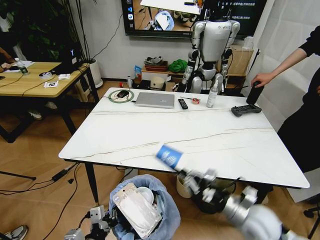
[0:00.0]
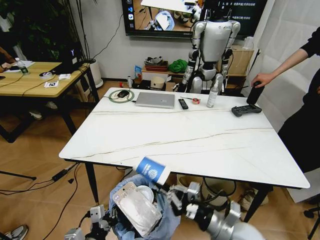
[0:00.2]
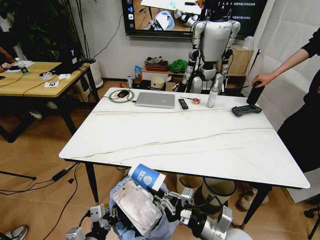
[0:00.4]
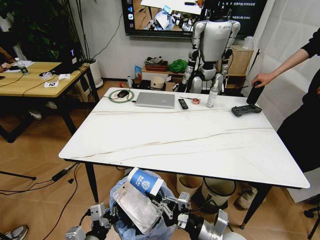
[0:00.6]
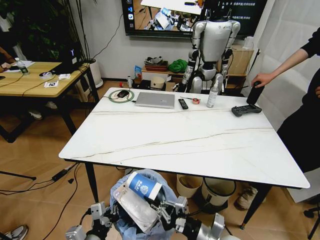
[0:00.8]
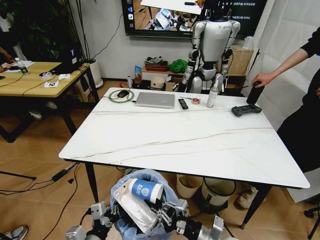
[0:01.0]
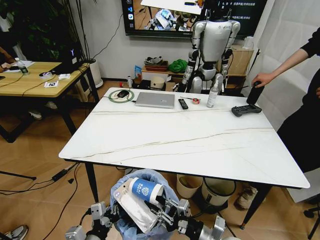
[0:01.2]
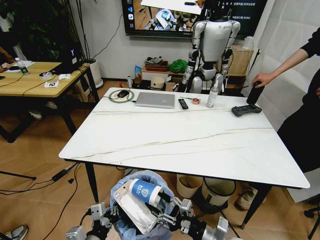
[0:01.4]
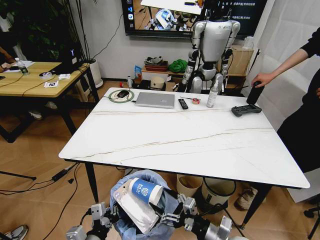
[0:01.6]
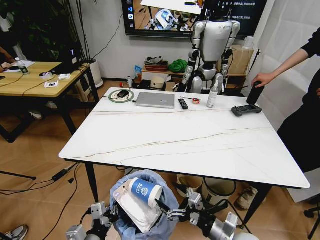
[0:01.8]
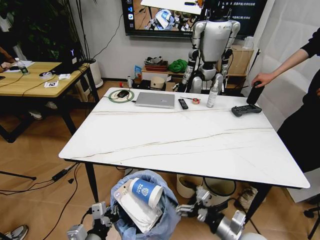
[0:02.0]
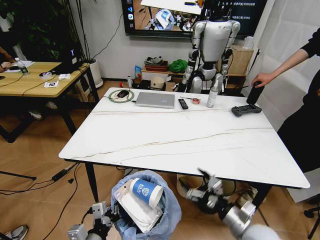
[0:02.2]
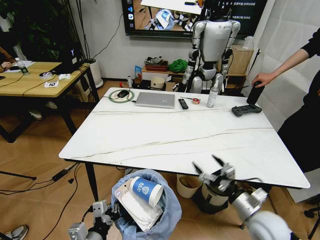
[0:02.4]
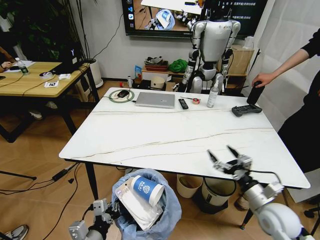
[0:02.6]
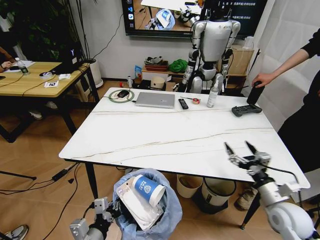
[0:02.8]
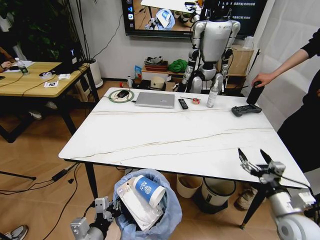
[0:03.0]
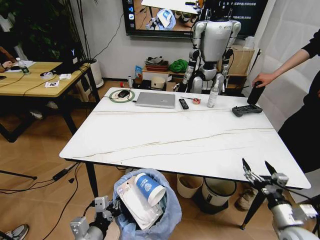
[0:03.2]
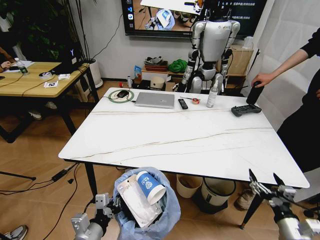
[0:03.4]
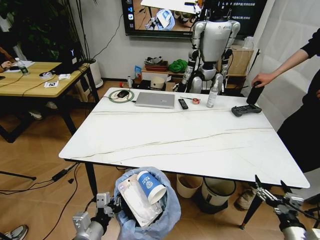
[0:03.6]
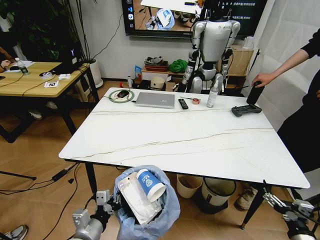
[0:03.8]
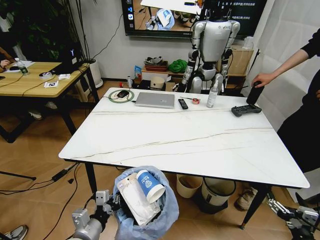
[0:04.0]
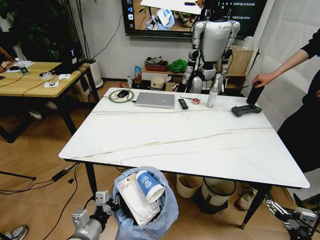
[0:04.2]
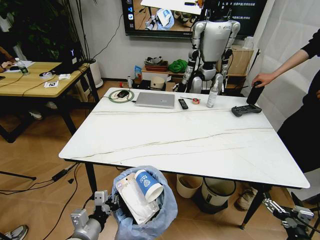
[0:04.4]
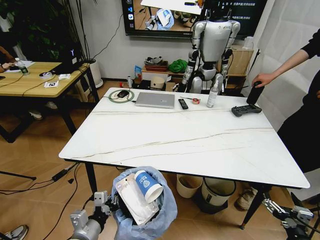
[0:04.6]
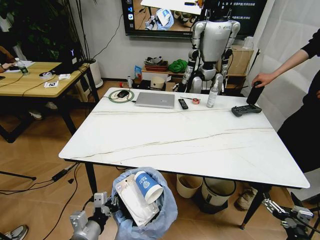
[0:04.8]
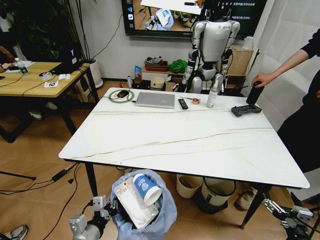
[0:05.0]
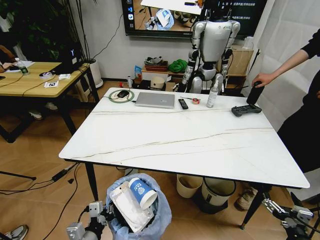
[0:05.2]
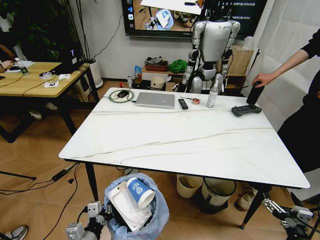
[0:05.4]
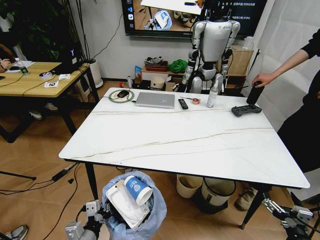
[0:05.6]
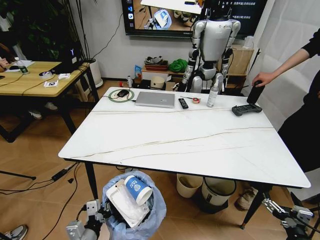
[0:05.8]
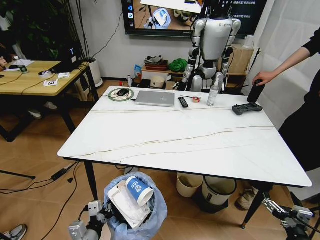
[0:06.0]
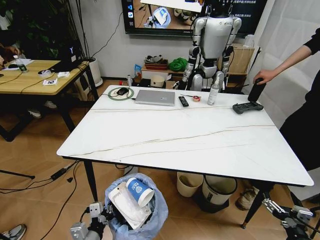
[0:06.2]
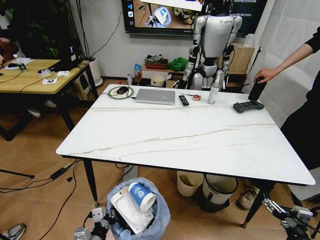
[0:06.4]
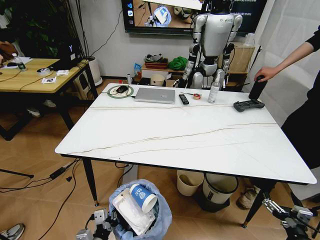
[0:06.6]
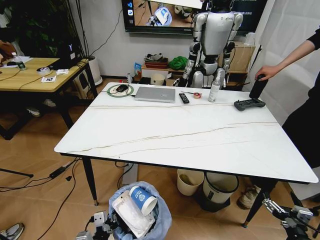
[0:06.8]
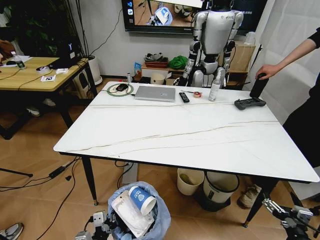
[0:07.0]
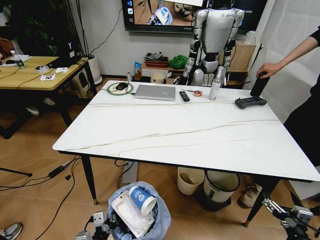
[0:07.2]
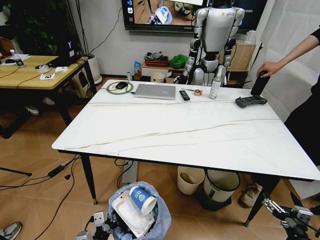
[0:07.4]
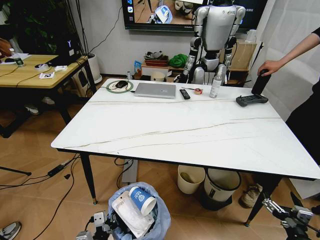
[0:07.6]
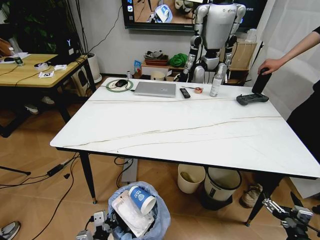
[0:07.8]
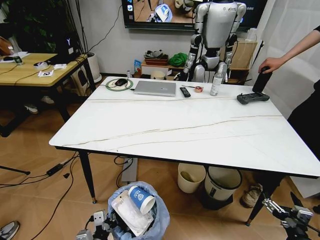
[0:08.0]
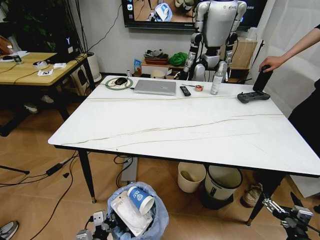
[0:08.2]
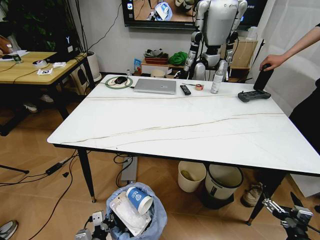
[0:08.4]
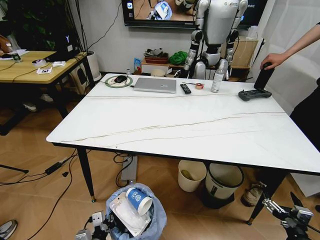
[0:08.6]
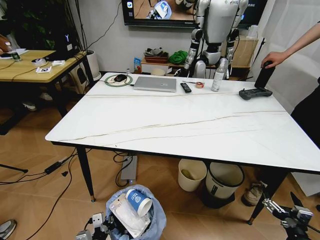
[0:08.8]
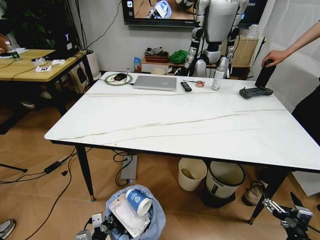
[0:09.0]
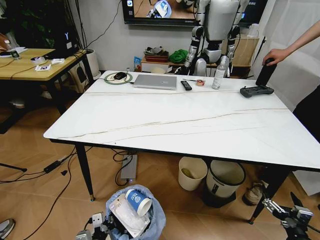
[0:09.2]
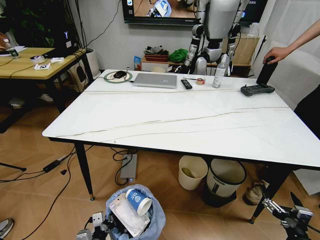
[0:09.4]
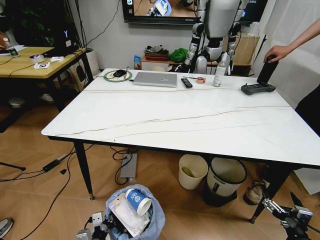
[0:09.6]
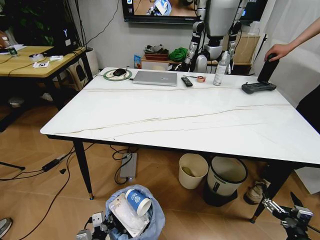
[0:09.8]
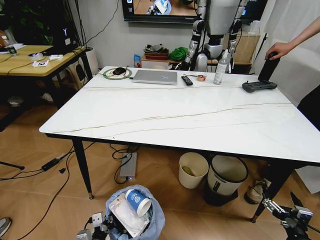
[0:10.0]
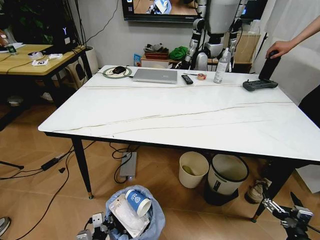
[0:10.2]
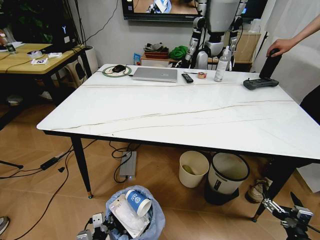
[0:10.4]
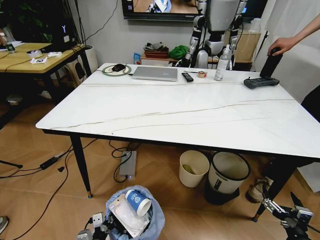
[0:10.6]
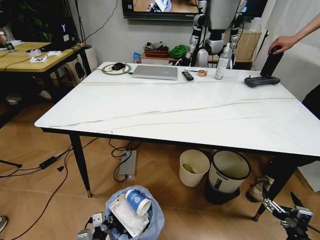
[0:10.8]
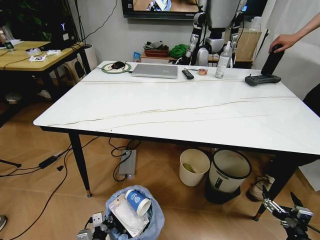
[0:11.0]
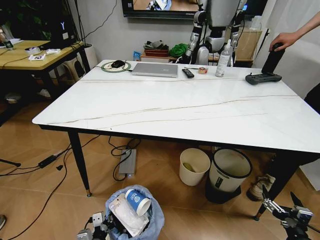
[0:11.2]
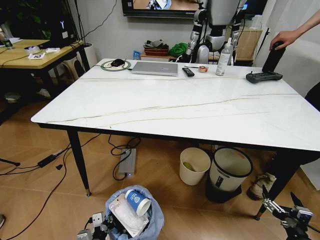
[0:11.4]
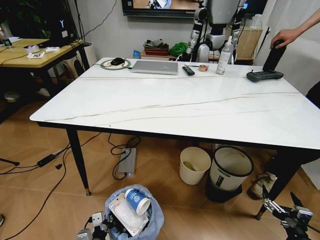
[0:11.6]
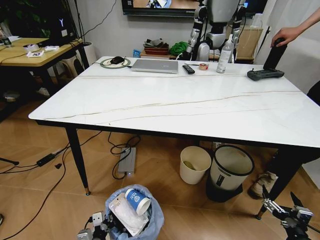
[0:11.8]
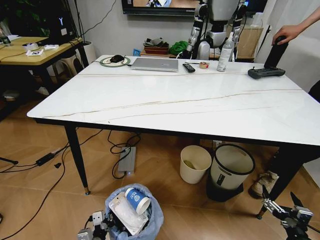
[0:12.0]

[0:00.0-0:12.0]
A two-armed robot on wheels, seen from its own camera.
Task of the whole recording: Pick up the trash bin and place the trash from the table into it.
0:00.0 to 0:01.6: The right gripper travels backward, downward and to the left by roughly 10 cm, and opens its fingers.
0:01.6 to 0:03.0: The right gripper heads to the right, covering approximately 20 cm.
0:03.0 to 0:04.4: The right gripper moves backward and downward, about 15 cm.
0:04.4 to 0:06.0: The grippers make only small movements.

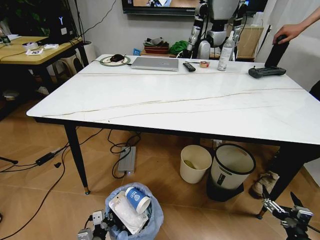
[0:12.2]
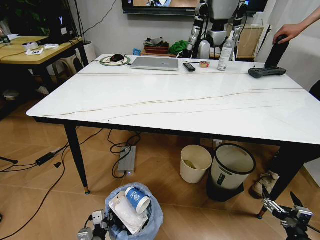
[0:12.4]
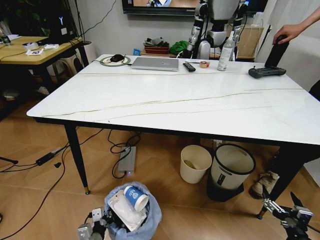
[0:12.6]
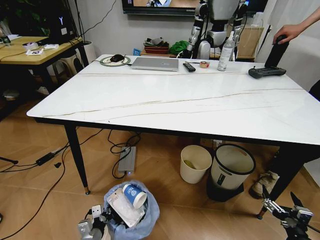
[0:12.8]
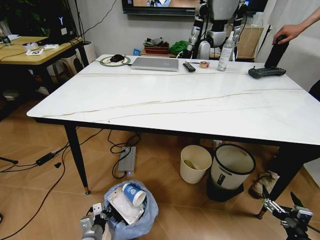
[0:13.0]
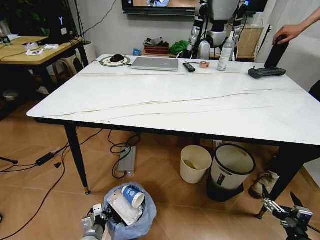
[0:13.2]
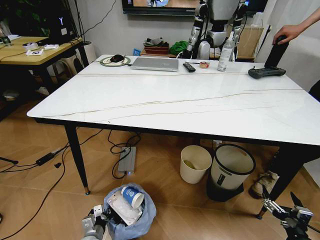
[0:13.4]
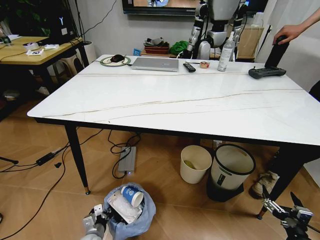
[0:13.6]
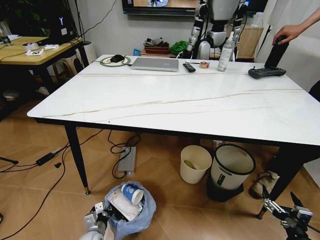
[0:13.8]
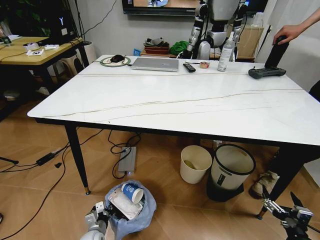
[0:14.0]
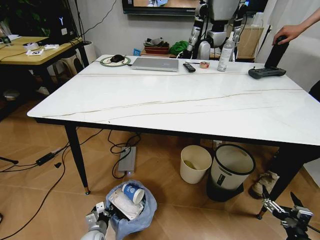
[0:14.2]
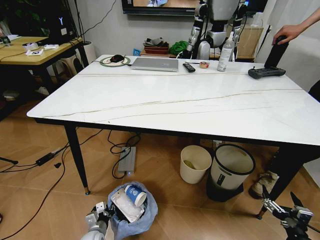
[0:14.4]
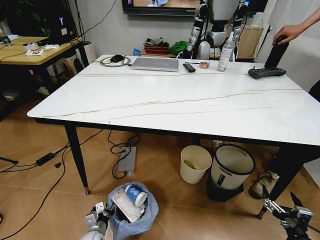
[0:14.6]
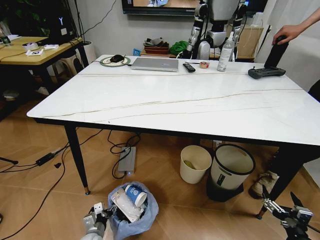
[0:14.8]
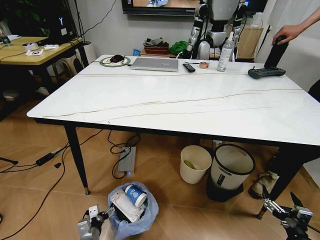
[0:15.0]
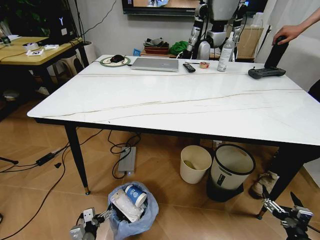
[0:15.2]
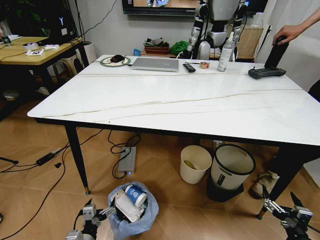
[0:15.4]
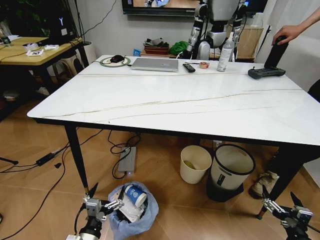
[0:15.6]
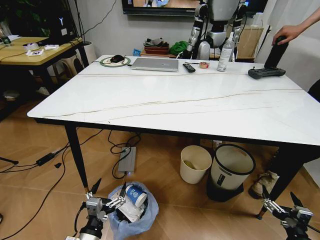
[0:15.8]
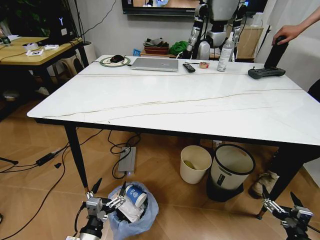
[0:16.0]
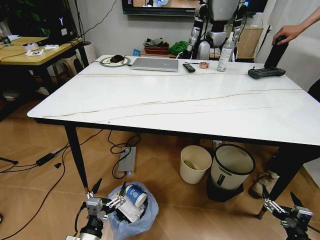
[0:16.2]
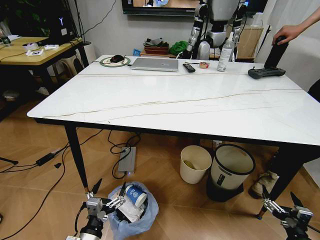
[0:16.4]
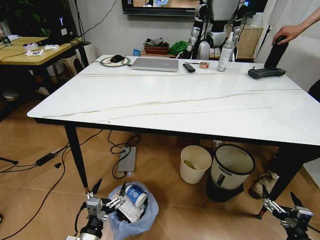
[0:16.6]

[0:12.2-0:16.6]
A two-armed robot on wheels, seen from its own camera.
Task of the whole recording: Pick up the trash bin and place the trash from the table into it.
0:12.2 to 0:13.6: The left gripper heads downward and forward, covering some 10 cm.
0:13.6 to 0:15.2: The left gripper travels backward by roughly 5 cm, and opens.
0:15.2 to 0:16.6: The left gripper heads upward and to the right, covering about 15 cm.
